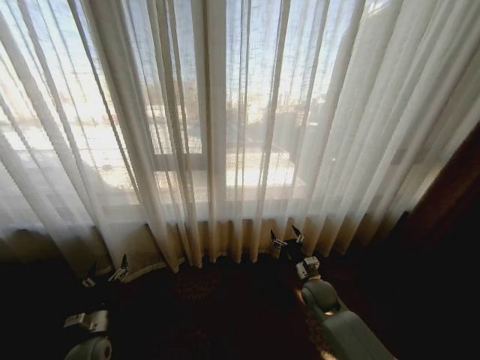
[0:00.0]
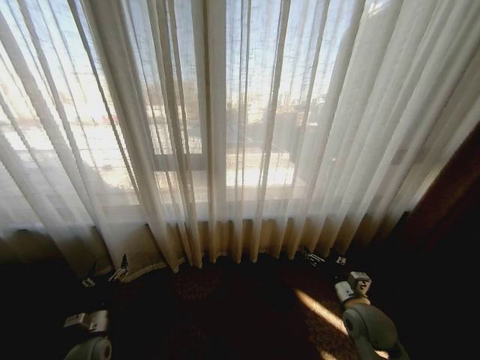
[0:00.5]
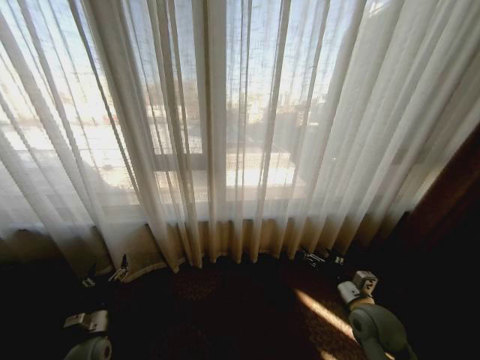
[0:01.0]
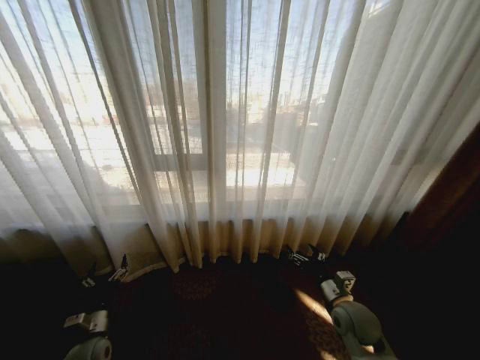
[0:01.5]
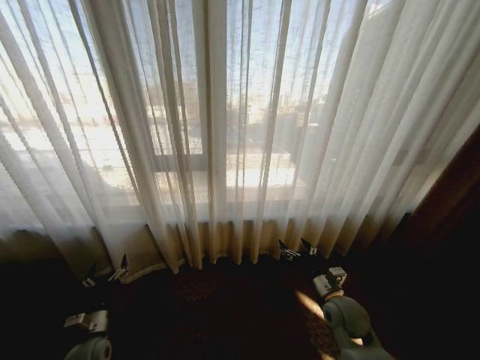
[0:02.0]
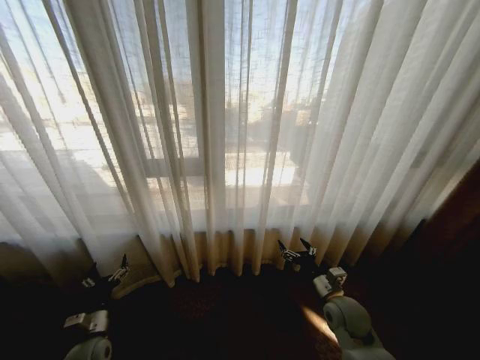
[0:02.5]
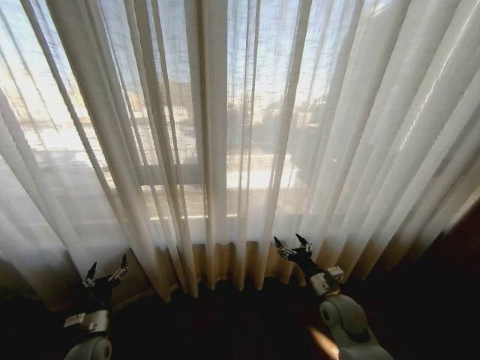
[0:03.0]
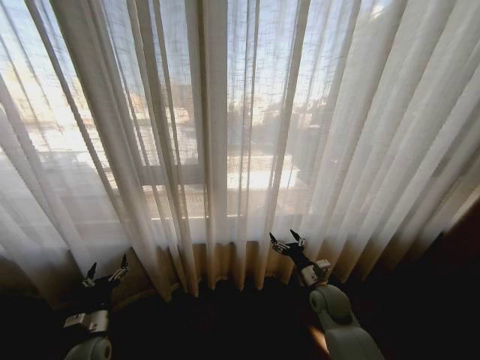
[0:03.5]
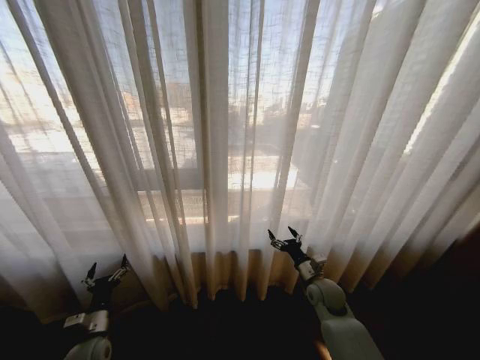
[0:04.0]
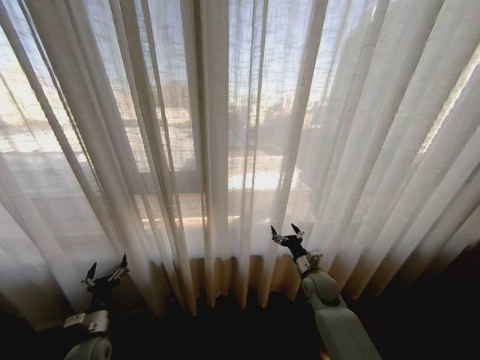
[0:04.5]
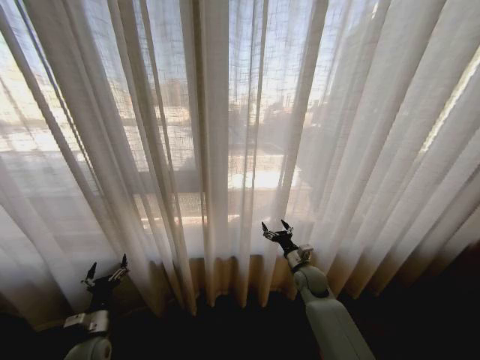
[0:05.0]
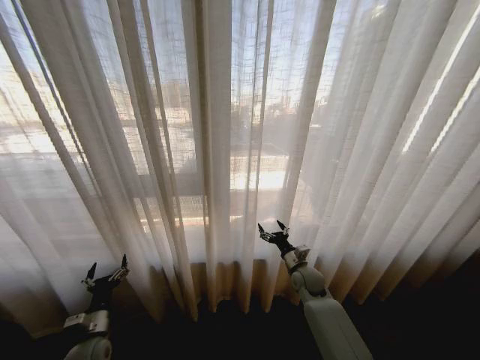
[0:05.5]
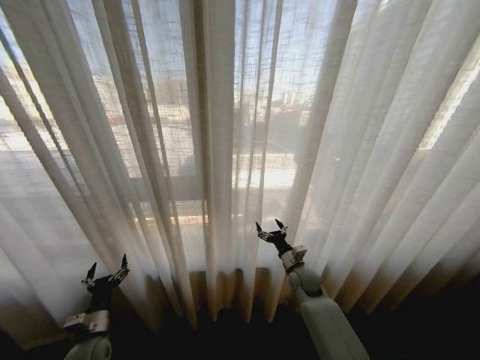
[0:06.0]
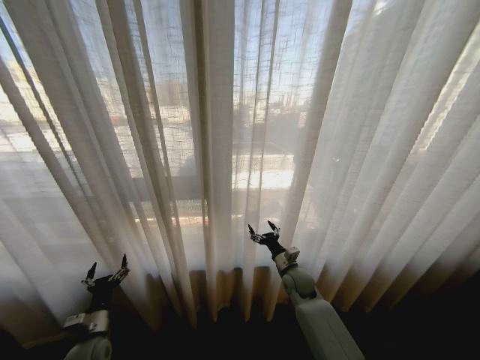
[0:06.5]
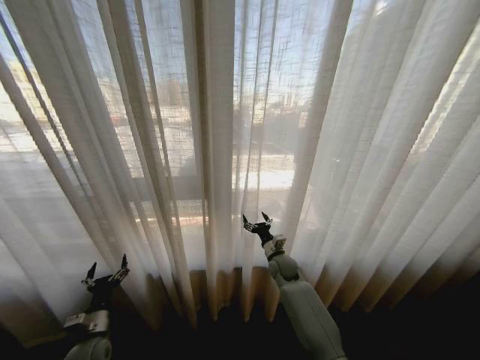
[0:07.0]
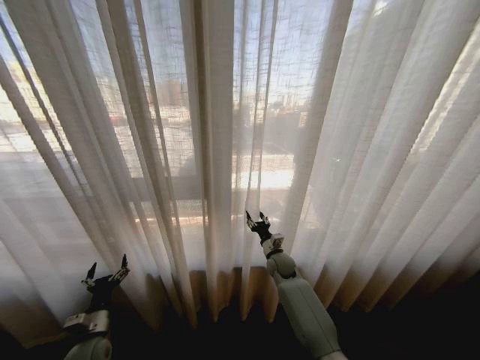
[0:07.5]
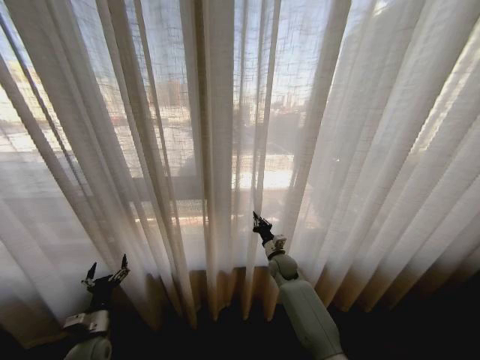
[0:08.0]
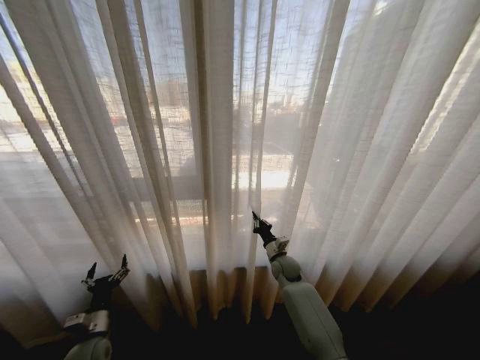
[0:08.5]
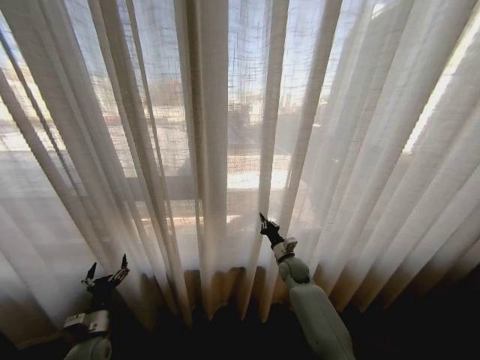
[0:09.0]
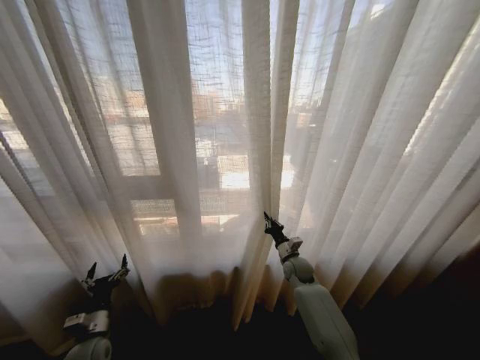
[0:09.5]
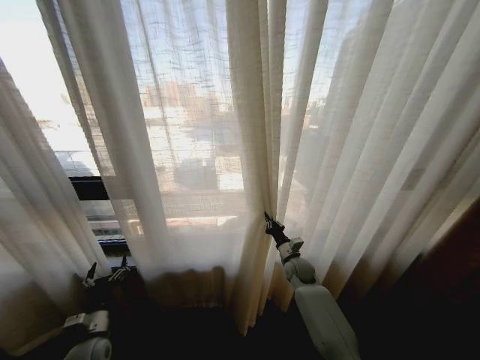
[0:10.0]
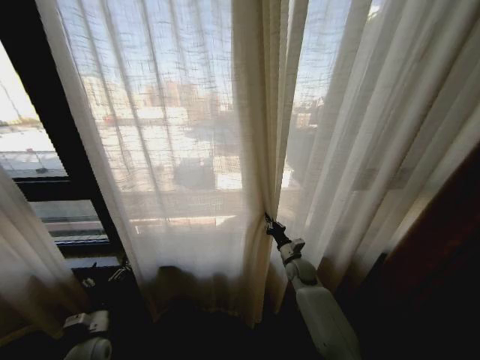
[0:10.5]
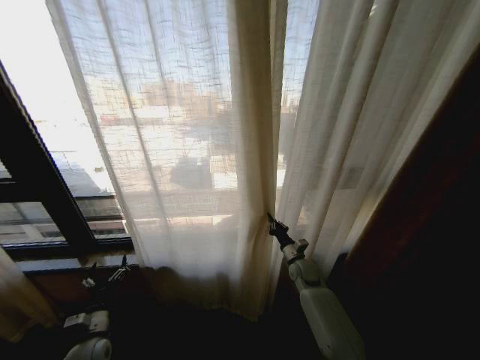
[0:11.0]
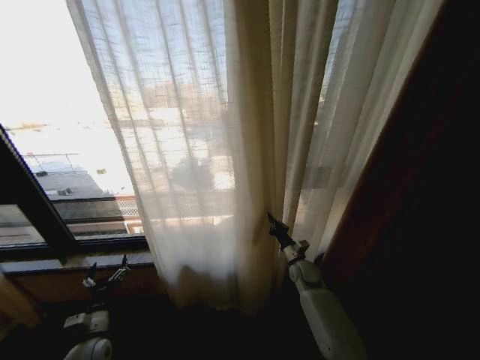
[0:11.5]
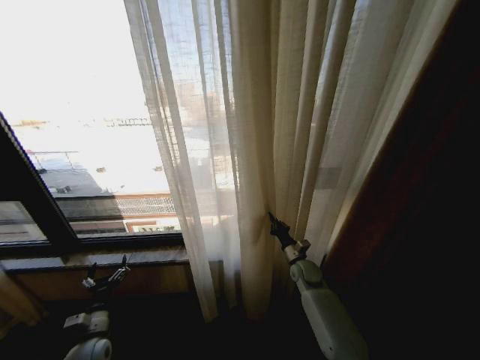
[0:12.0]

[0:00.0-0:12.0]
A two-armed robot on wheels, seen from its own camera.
Task of the whole recording: Open the curtains by pulling them apart, changing their state from closed to fully open.
0:02.0 to 0:04.0: The right gripper is displaced forward by some 5 cm.
0:04.0 to 0:06.0: The right gripper travels forward by roughly 5 cm.
0:06.0 to 0:08.0: The right gripper goes approximately 10 cm to the left and forward, and closes its fingers.
0:08.0 to 0:10.0: The right gripper moves to the right, some 5 cm.

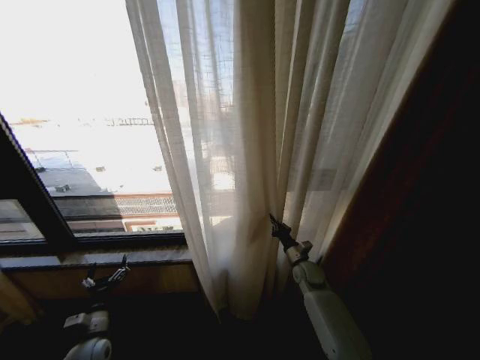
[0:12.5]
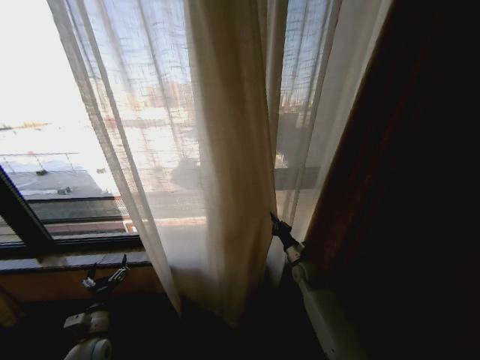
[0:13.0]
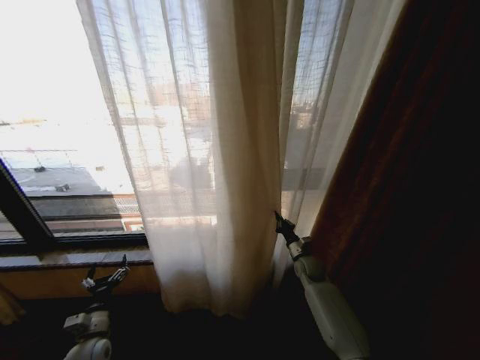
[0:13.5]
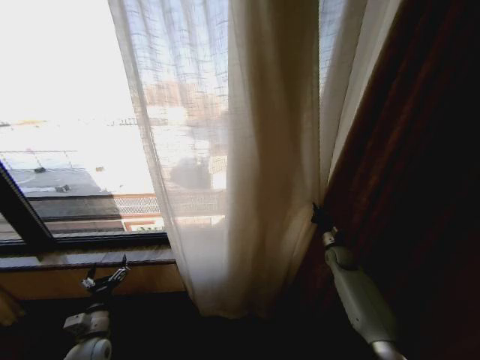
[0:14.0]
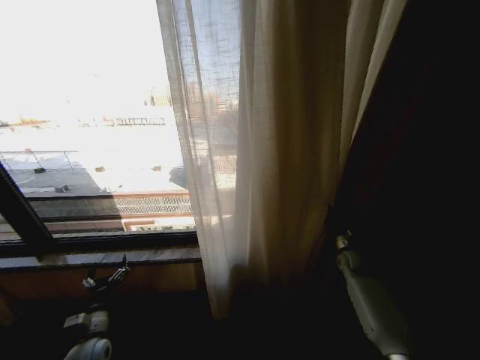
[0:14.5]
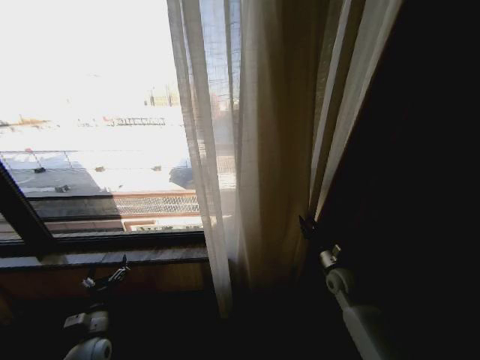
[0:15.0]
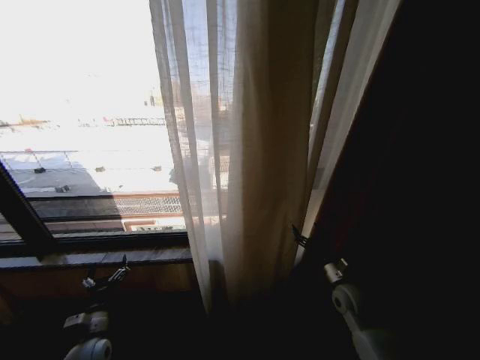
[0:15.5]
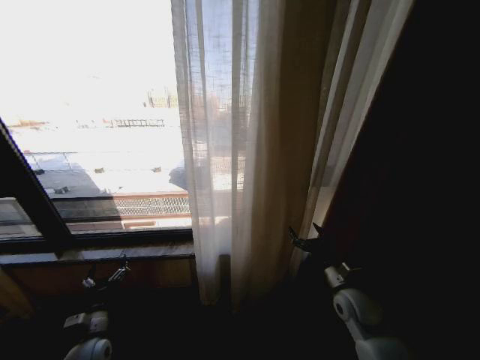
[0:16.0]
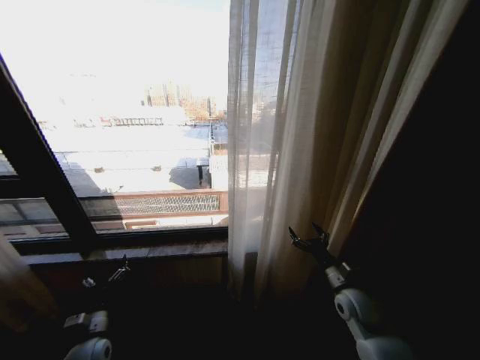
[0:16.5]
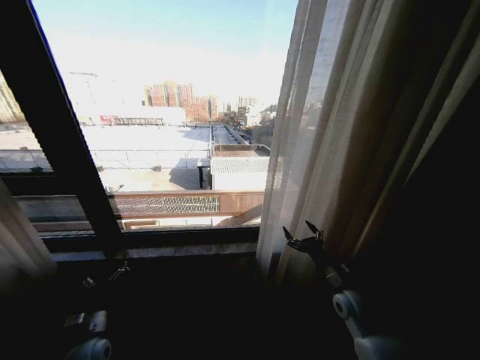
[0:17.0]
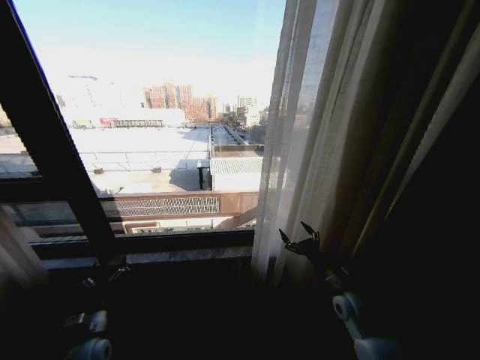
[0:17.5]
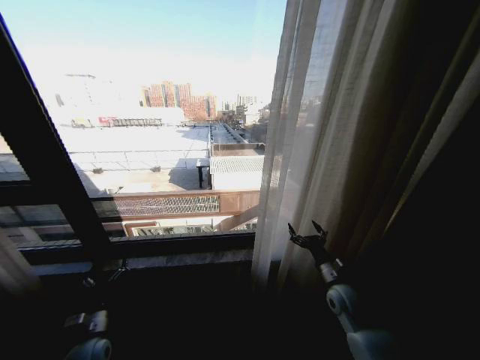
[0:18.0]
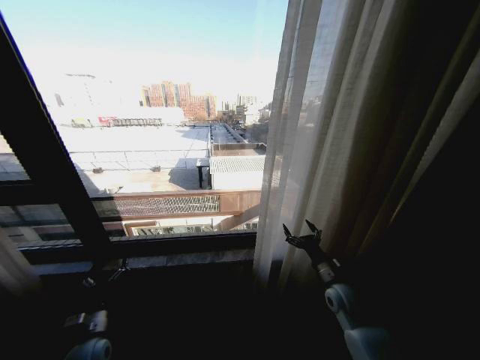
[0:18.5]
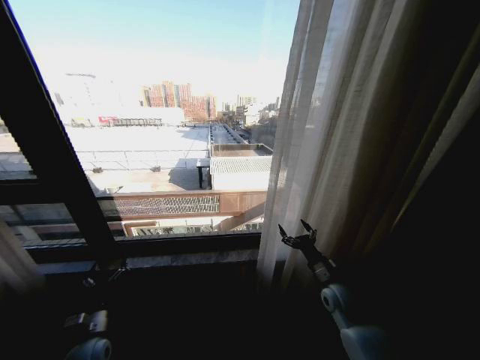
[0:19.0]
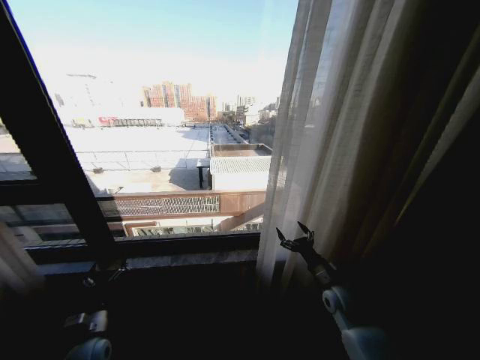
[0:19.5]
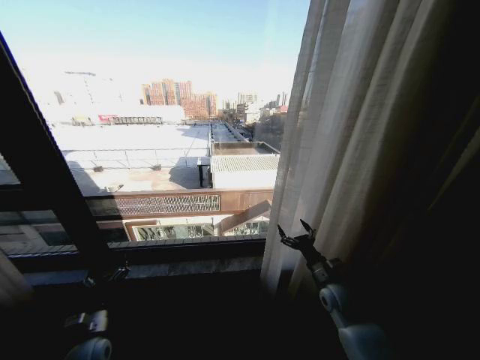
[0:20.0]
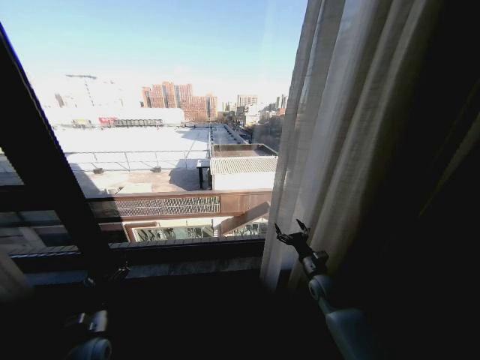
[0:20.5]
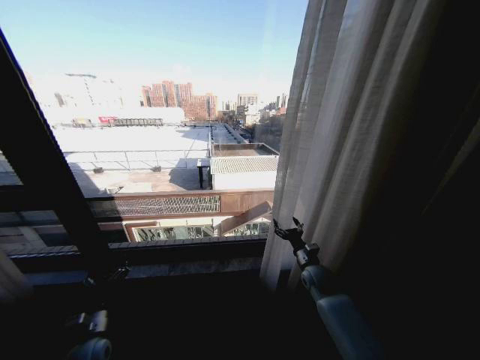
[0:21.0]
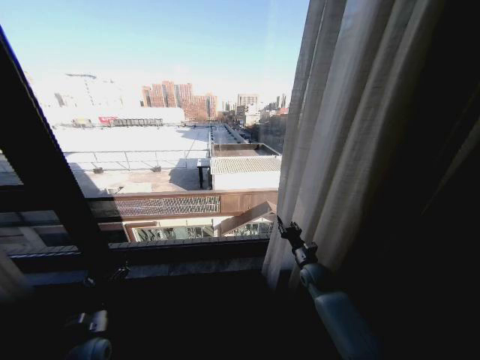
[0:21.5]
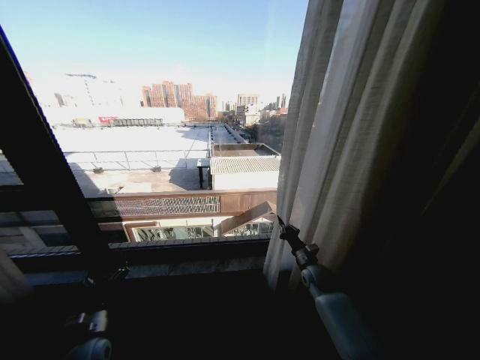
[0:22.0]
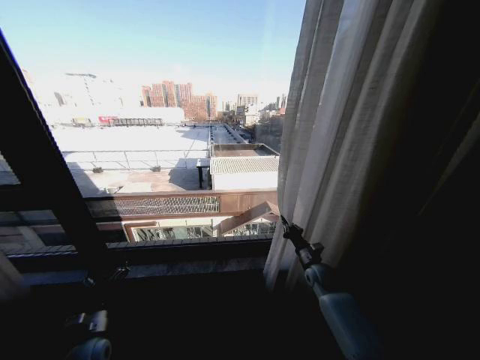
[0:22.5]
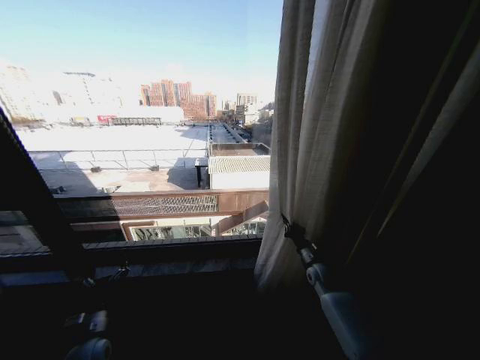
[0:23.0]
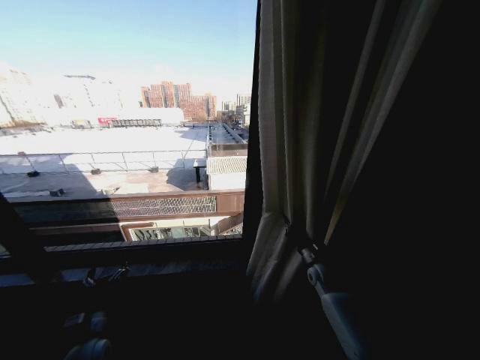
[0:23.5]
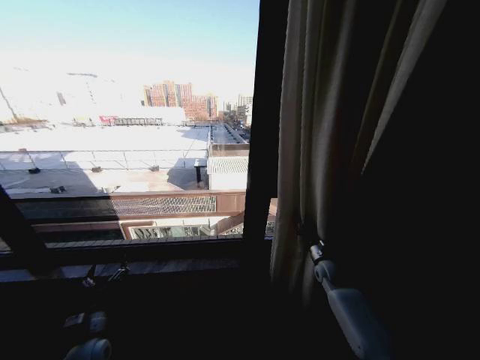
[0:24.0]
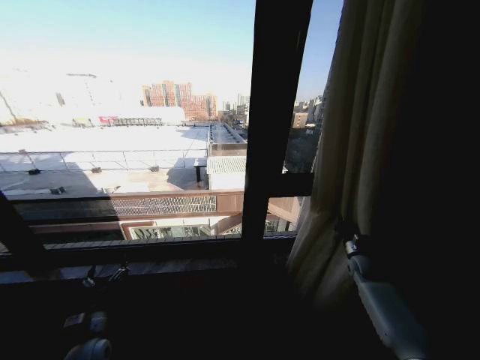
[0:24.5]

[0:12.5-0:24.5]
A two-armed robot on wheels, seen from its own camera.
Task of the whole recording: Open the curtains by pulling them apart, changing their state from closed to fully open.
0:12.5 to 0:14.5: The right gripper shifts approximately 15 cm to the right.
0:14.5 to 0:16.5: The right gripper goes some 20 cm backward and to the left, and opens.
0:18.5 to 0:20.5: The right gripper changes place by roughly 5 cm.
0:20.5 to 0:22.5: The right gripper goes about 5 cm forward, and closes its fingers.
0:22.5 to 0:24.5: The right gripper shifts roughly 15 cm to the right.

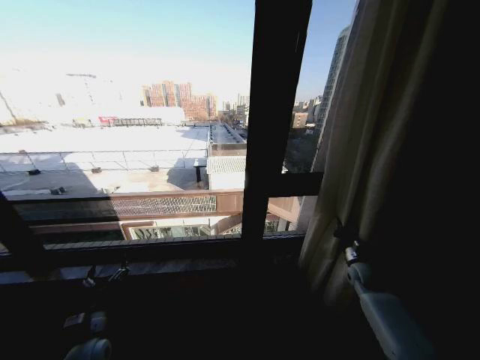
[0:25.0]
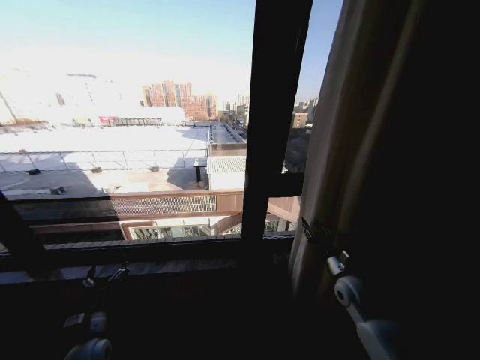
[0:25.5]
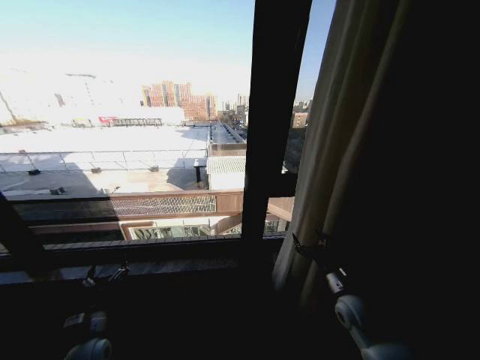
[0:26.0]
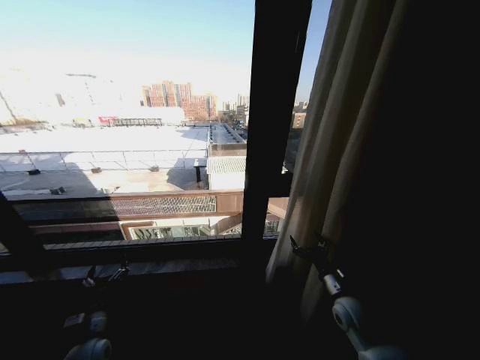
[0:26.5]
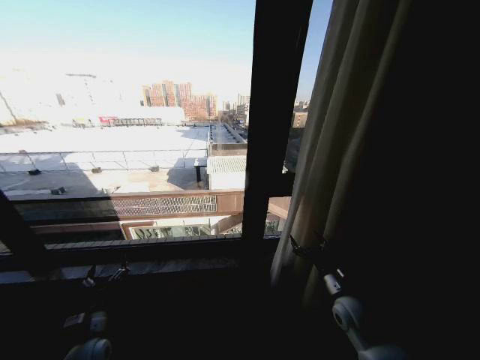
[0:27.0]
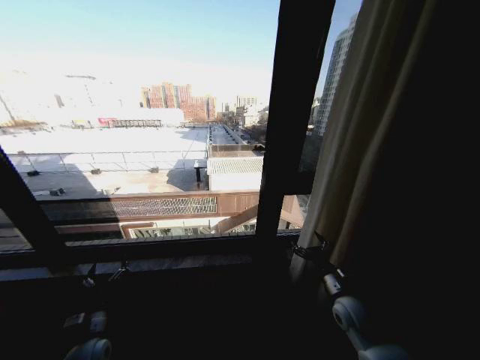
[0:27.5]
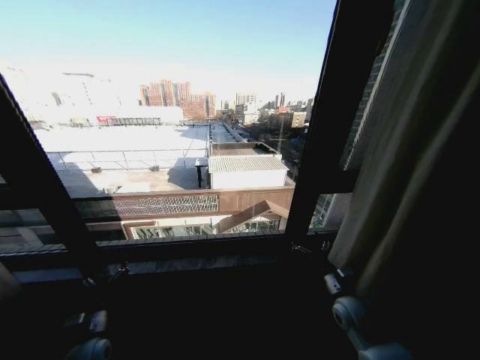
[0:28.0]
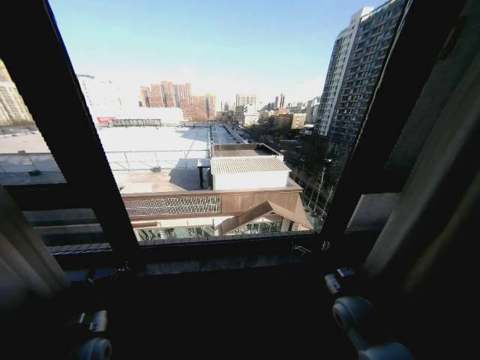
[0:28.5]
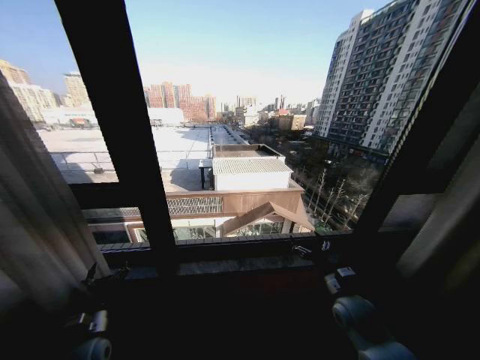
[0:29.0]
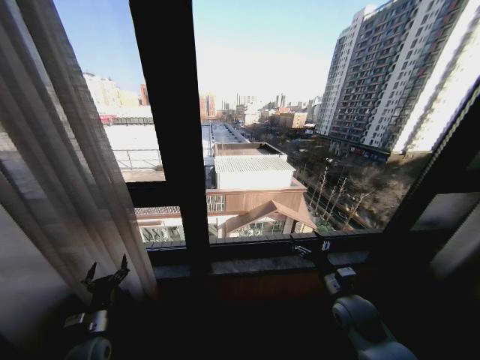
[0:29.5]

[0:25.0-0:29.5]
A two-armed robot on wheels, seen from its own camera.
Task of the whole recording: Open the curtains by pulling them apart, changing their state from closed to fully open.
0:25.0 to 0:27.0: The right gripper moves to the left and backward, roughly 20 cm, and opens its fingers.
